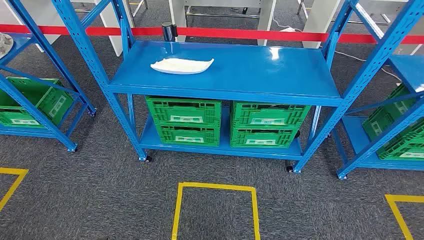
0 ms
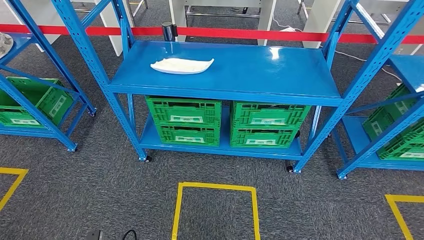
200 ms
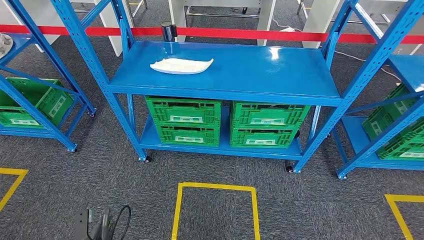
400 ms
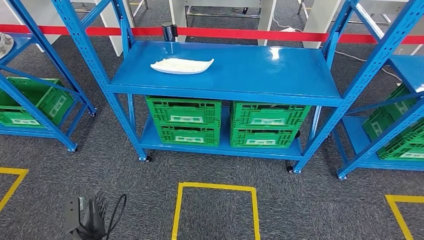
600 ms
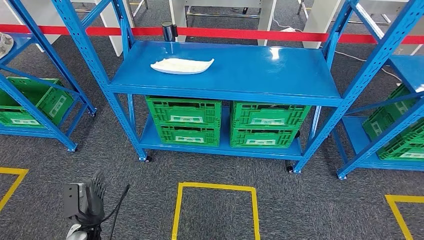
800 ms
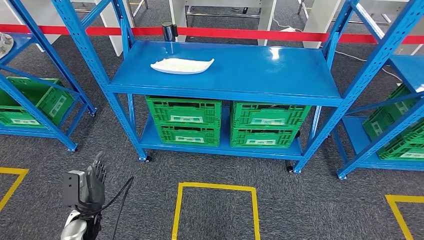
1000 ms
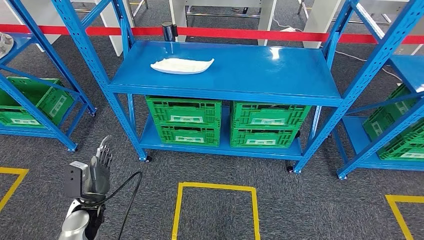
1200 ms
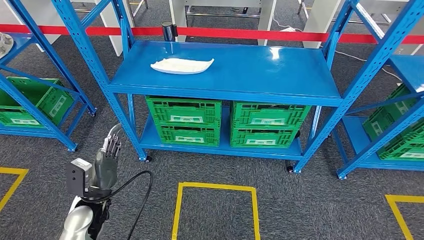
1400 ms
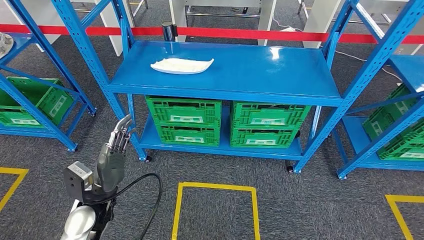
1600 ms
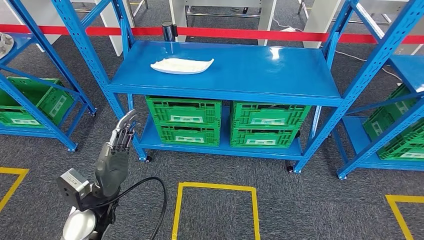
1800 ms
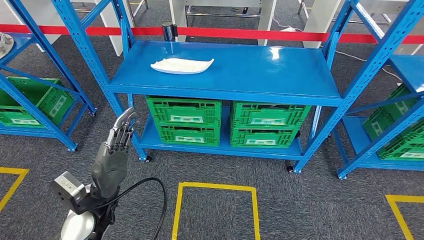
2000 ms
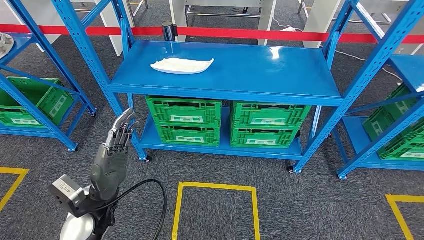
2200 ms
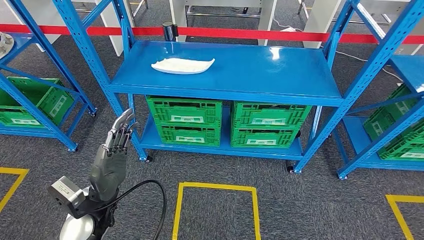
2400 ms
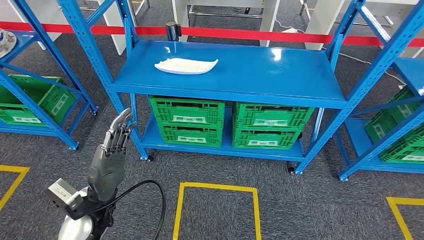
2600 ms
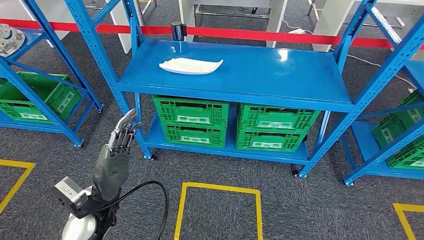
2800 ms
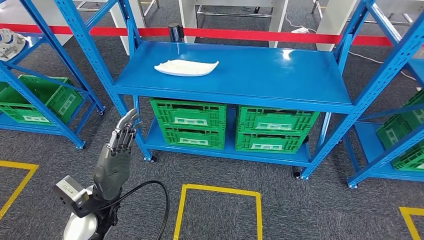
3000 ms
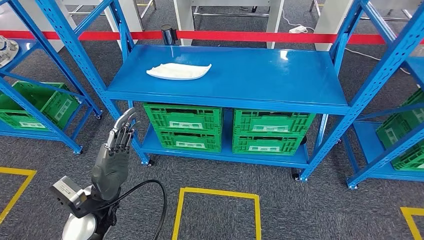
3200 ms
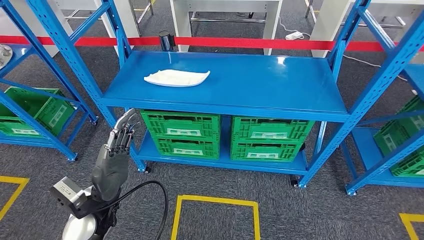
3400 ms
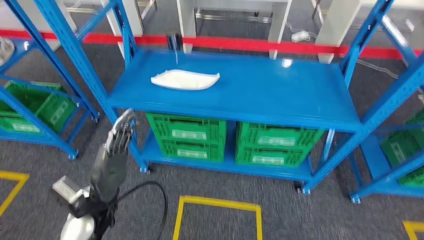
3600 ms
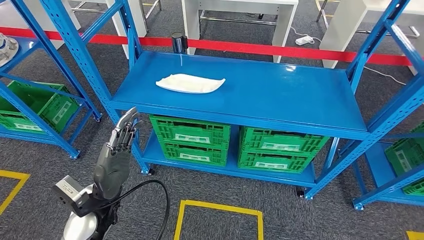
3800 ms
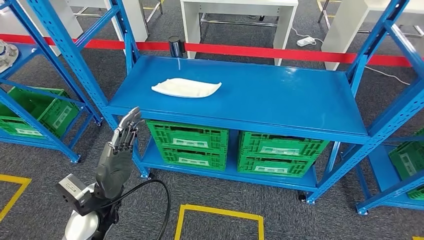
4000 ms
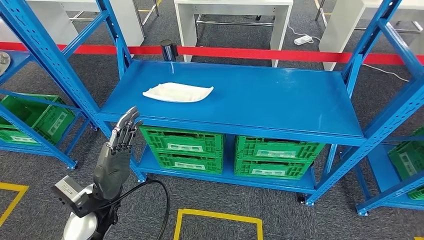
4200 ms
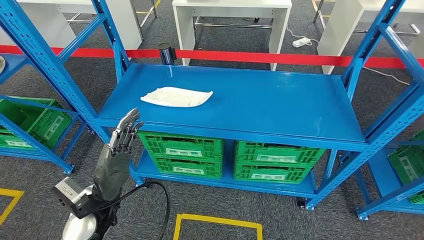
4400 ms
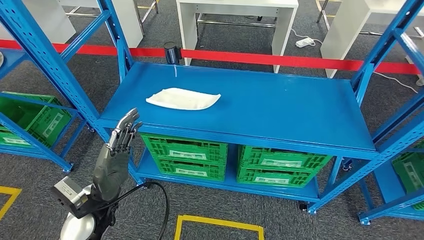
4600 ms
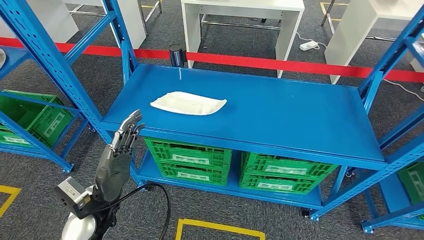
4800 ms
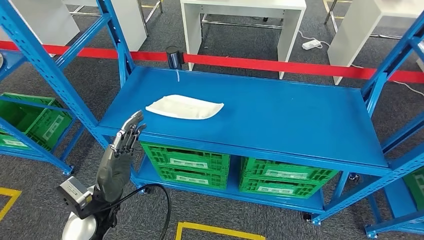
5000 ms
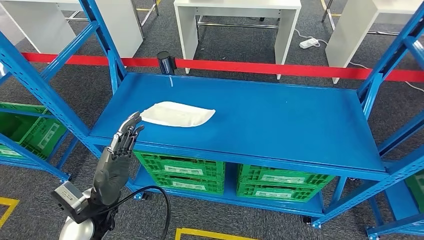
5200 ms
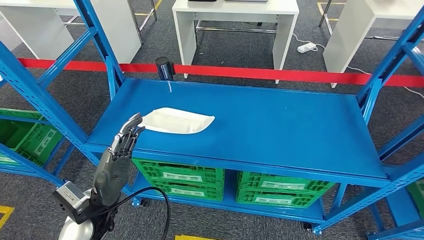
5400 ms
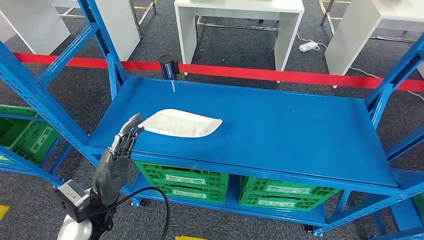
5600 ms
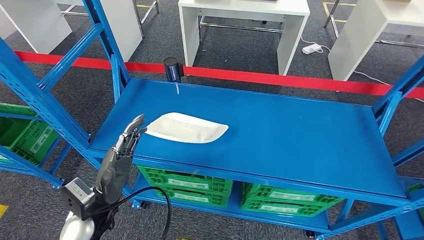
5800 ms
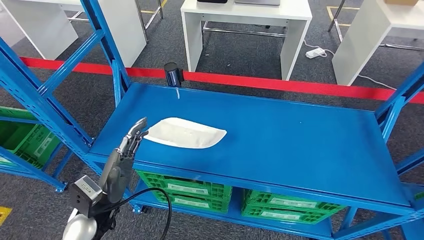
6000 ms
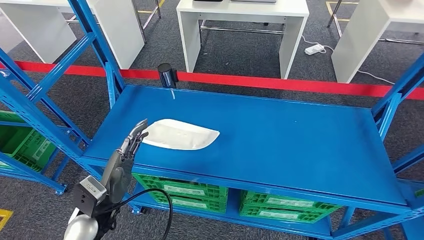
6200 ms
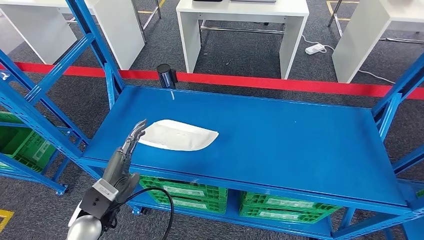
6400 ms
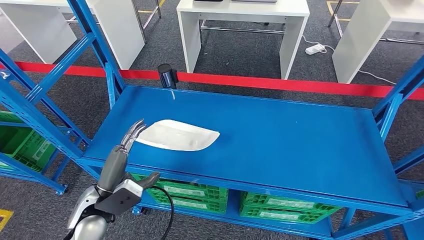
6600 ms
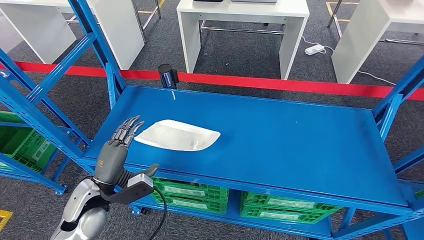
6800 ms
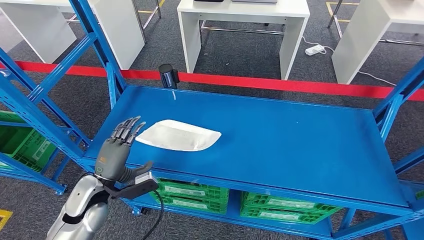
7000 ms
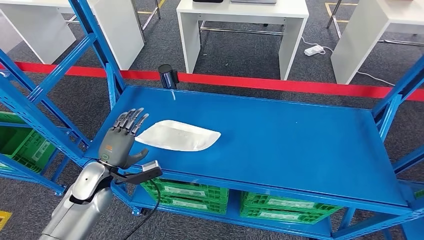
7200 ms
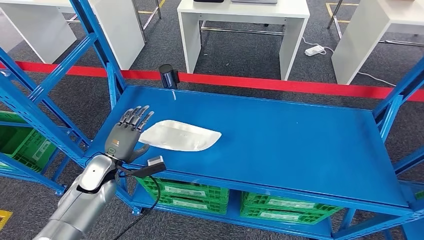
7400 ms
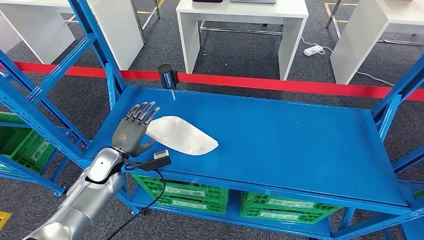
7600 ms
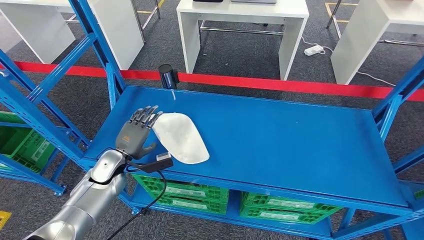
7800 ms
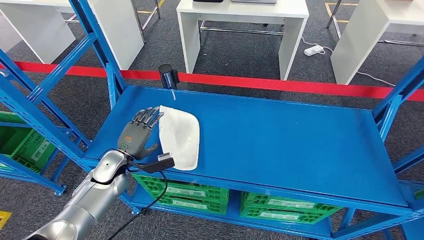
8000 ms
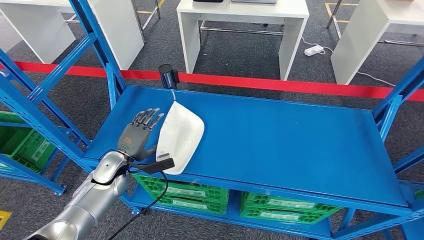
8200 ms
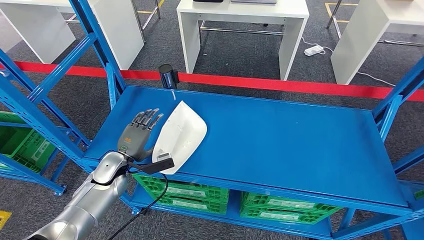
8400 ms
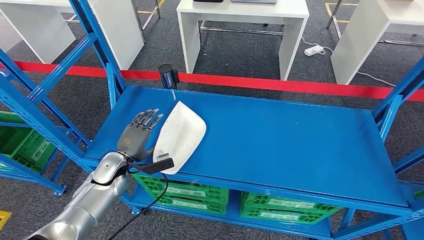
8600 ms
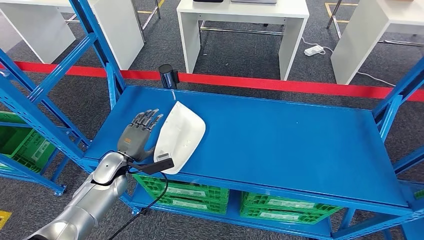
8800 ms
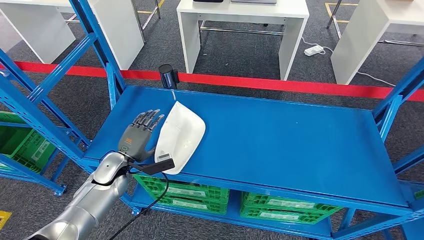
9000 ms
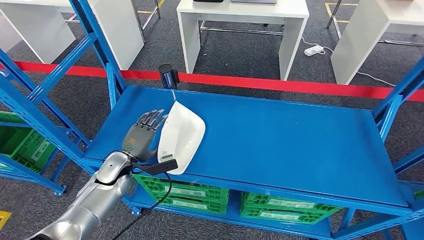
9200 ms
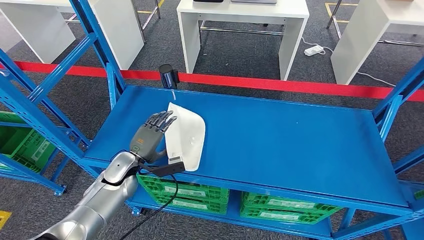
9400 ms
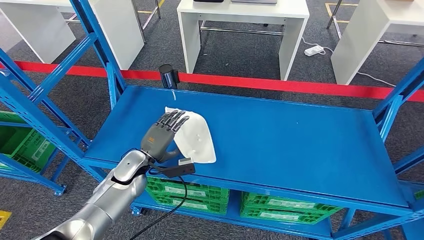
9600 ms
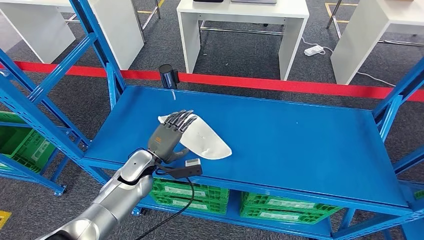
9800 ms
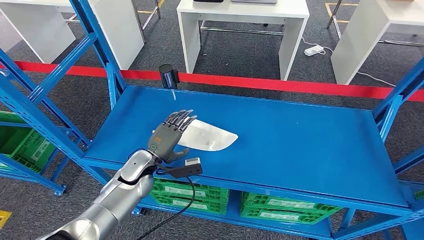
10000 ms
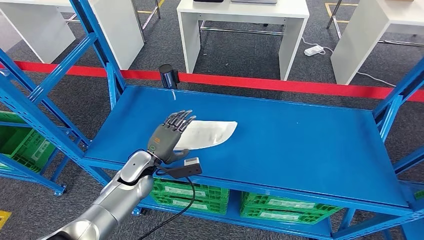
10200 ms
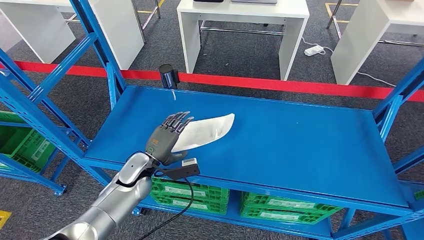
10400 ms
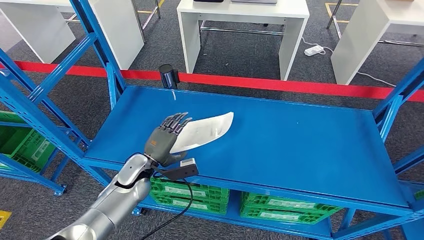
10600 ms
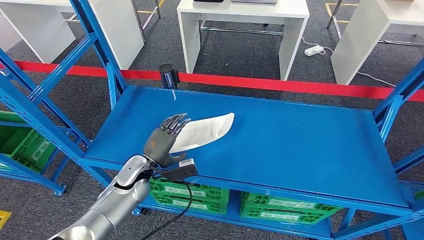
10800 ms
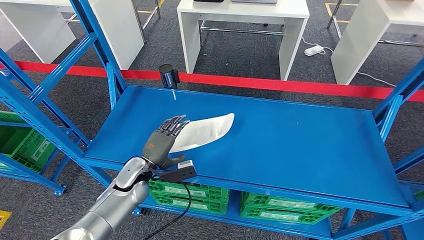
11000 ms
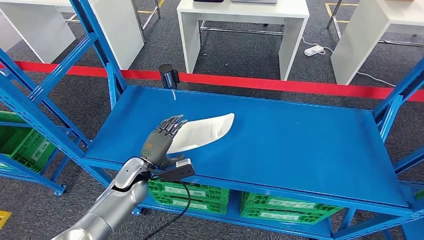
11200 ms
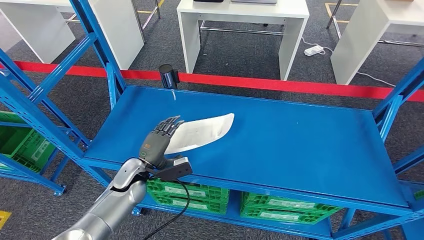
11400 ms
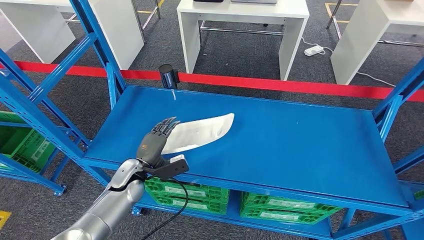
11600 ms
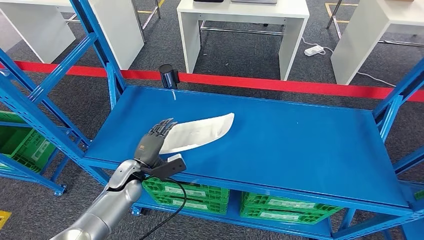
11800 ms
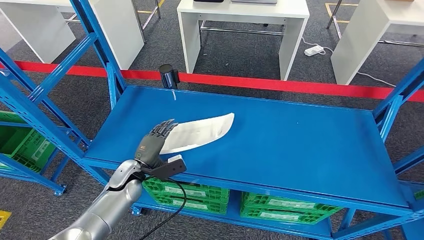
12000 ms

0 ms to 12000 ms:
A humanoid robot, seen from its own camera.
7600 ms to 9000 ms: The hands stay close to where they were, moving slightly.
9000 ms to 10400 ms: The left hand is displaced to the right by approximately 10 cm.
10400 ms to 12000 ms: There are only small adjustments of the hands.

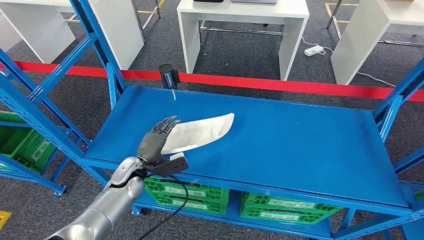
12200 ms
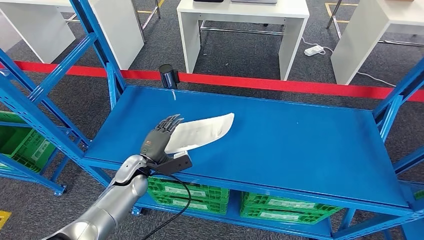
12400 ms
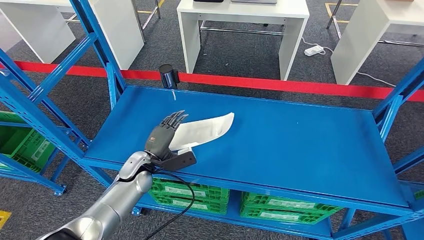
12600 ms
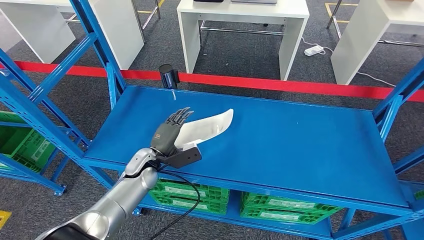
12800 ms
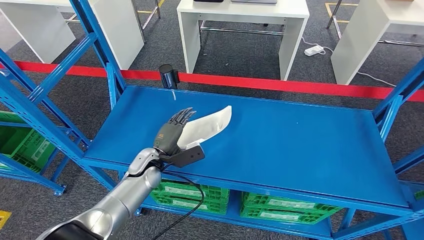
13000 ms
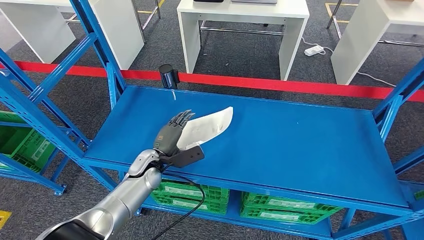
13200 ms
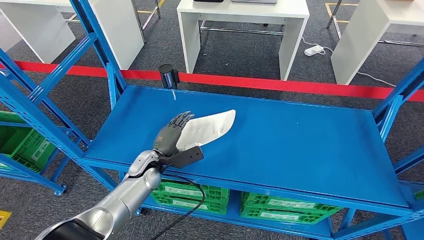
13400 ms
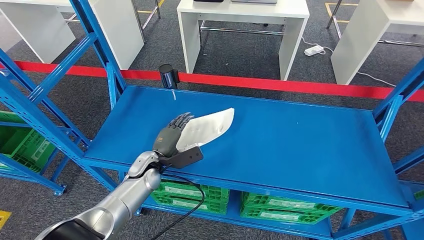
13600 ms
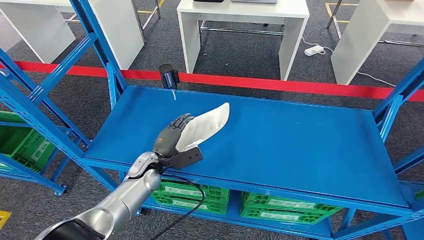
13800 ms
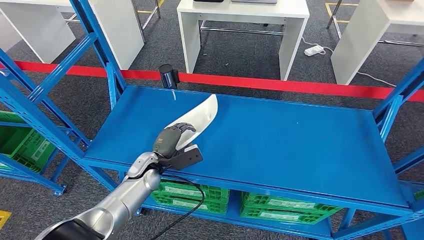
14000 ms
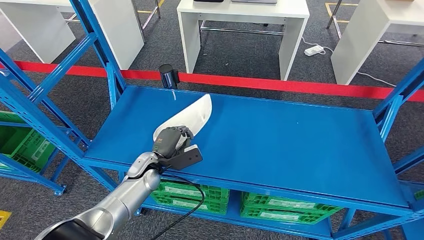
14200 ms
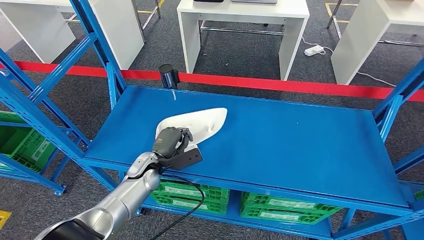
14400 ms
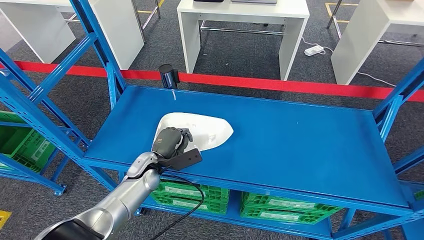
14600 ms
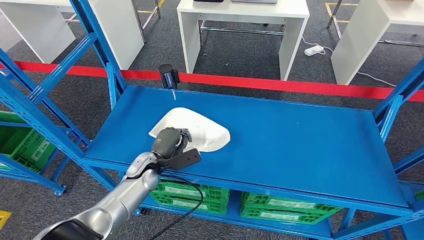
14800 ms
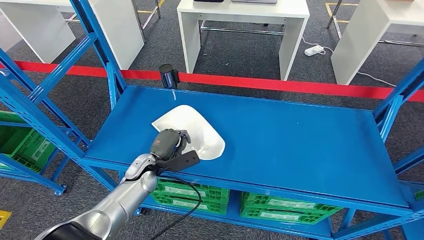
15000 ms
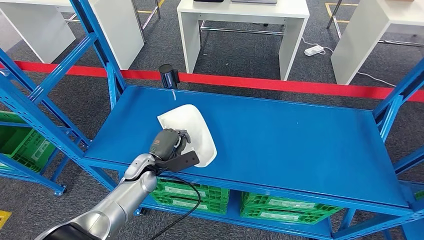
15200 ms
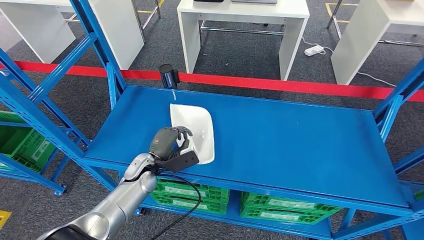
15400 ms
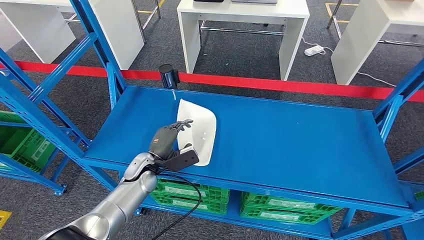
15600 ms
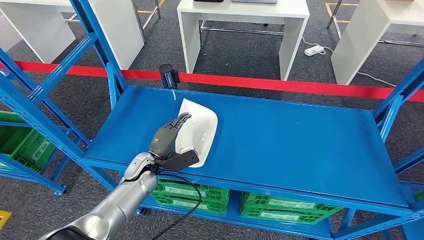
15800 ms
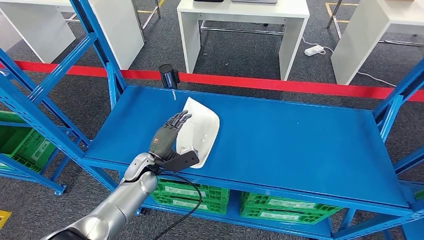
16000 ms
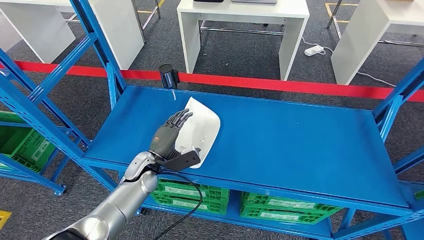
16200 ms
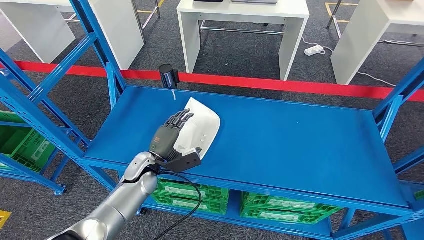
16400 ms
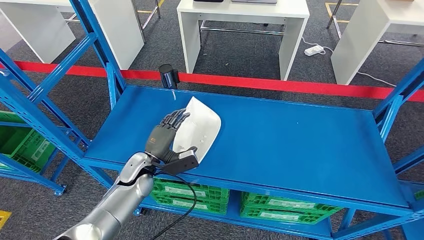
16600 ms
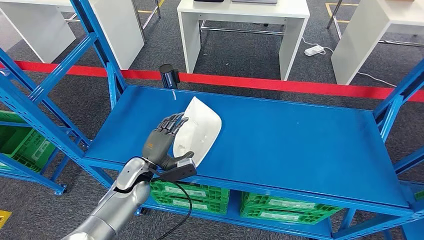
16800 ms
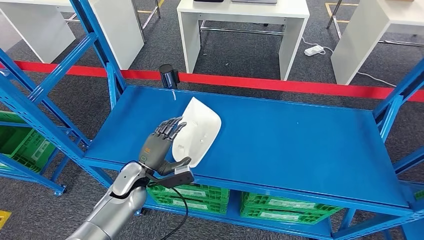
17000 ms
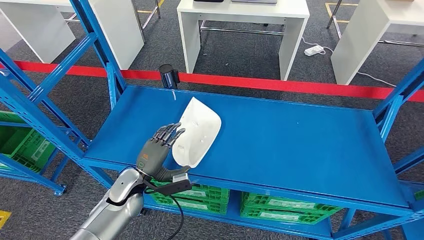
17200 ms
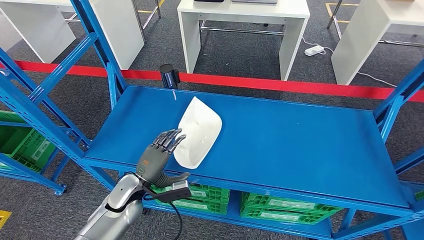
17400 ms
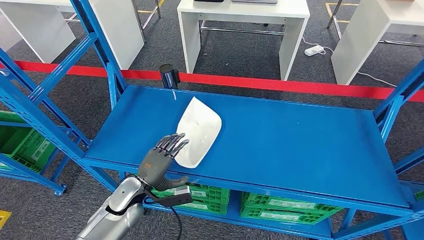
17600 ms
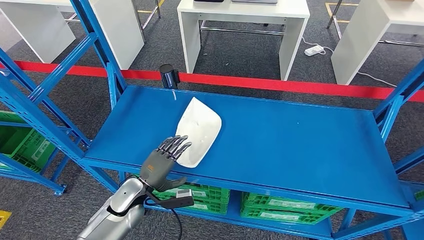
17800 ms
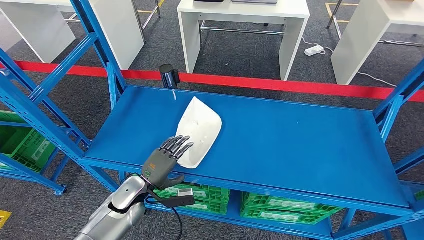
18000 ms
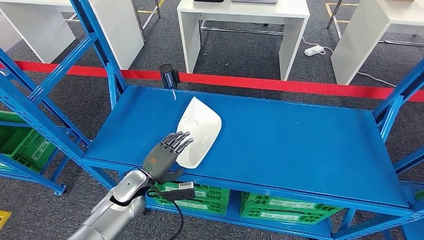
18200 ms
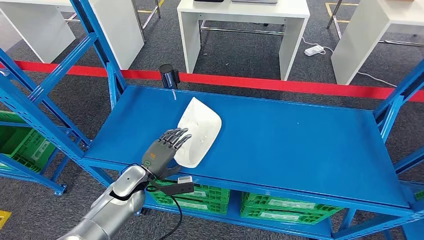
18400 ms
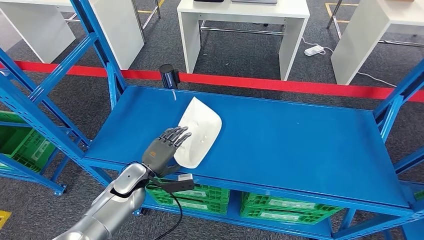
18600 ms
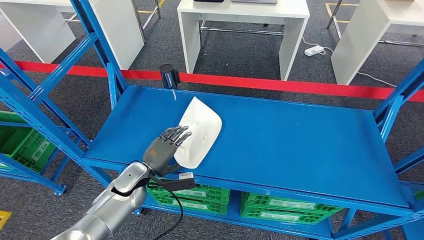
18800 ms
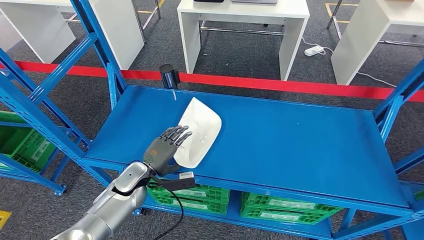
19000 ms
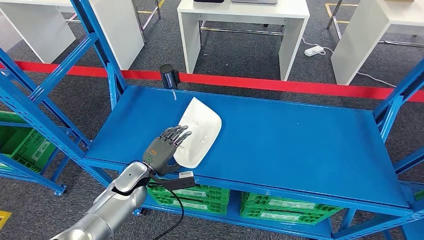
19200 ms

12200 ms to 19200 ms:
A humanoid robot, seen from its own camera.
12200 ms to 13600 ms: The left hand ends up roughly 5 cm from where it was.
13600 ms to 15000 ms: Both hands stay about where they are.
15000 ms to 16400 ms: The hands move only a little.
16400 ms to 17800 ms: The left hand heads backward, covering approximately 5 cm.
17800 ms to 19200 ms: The hands stay close to where they were, moving slightly.
